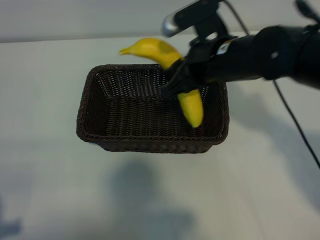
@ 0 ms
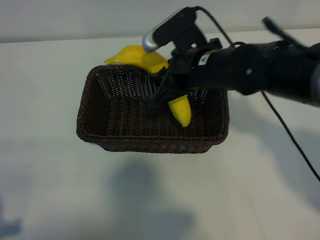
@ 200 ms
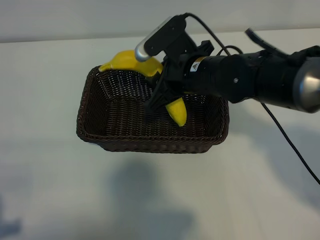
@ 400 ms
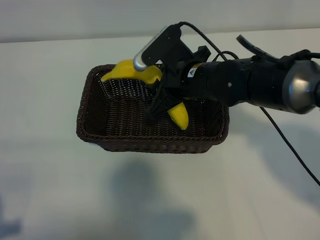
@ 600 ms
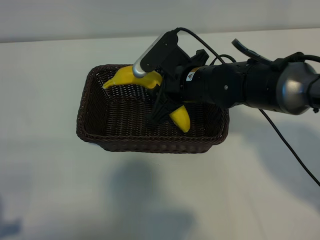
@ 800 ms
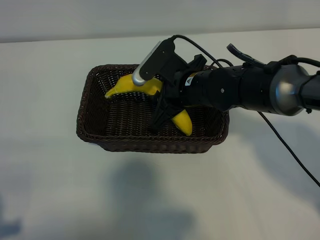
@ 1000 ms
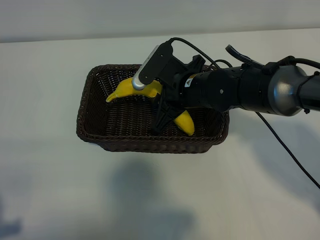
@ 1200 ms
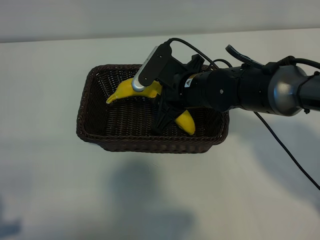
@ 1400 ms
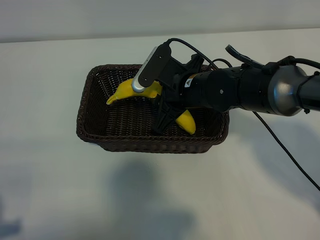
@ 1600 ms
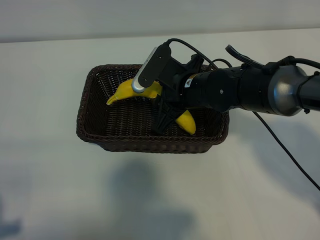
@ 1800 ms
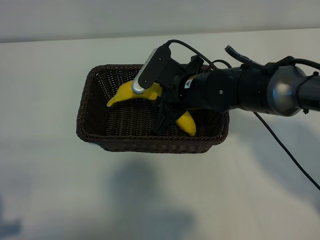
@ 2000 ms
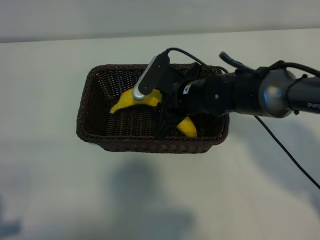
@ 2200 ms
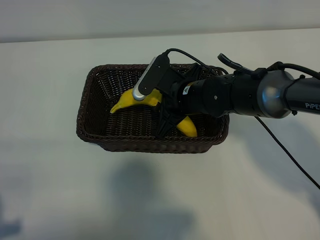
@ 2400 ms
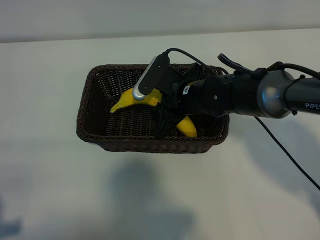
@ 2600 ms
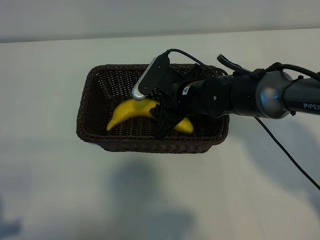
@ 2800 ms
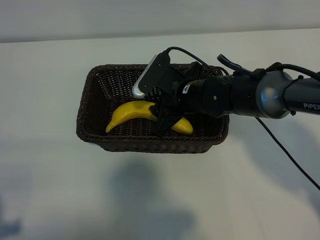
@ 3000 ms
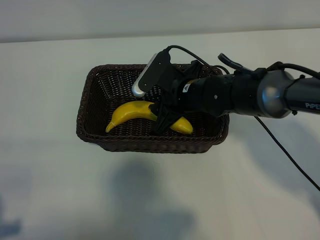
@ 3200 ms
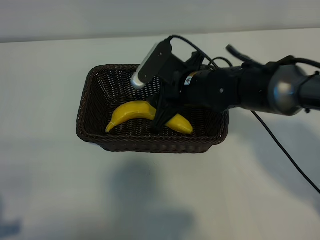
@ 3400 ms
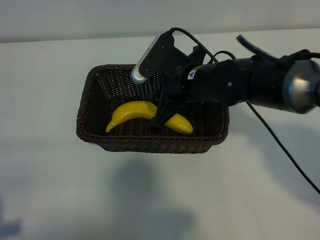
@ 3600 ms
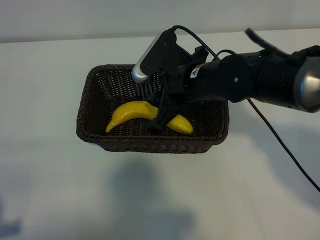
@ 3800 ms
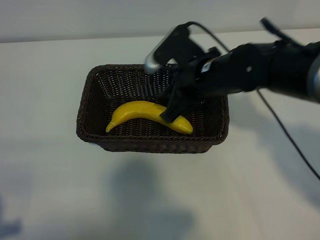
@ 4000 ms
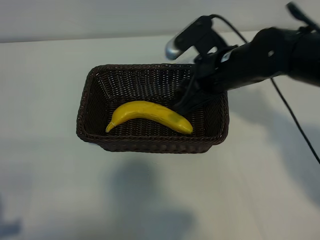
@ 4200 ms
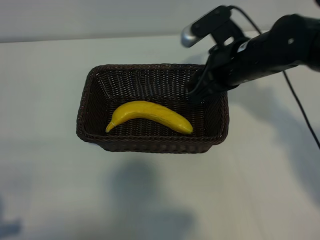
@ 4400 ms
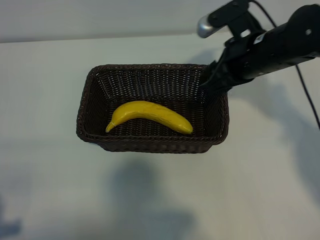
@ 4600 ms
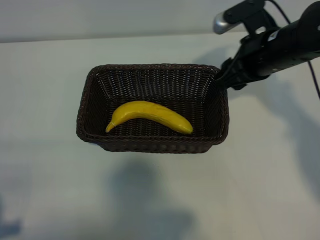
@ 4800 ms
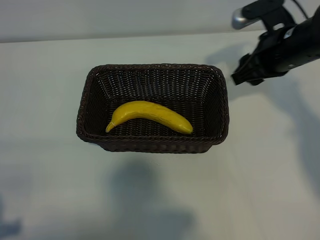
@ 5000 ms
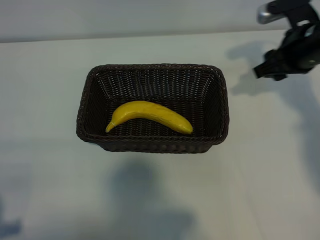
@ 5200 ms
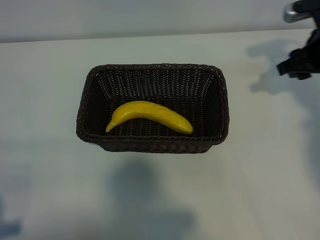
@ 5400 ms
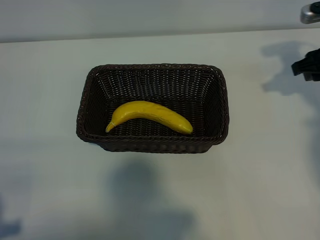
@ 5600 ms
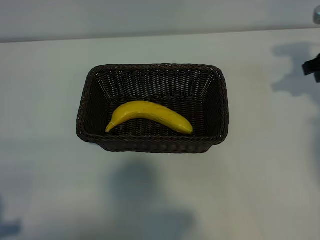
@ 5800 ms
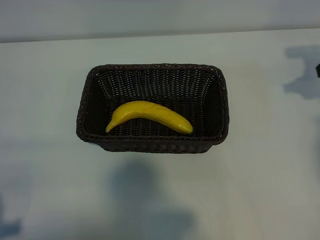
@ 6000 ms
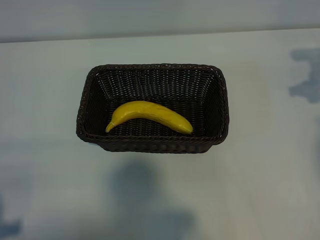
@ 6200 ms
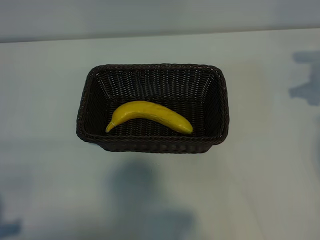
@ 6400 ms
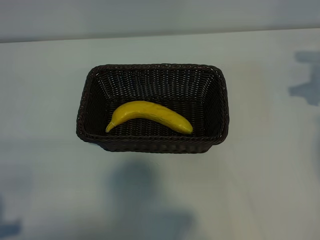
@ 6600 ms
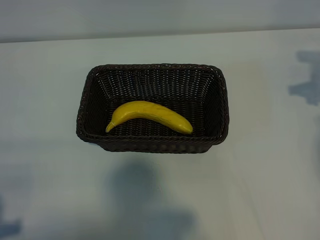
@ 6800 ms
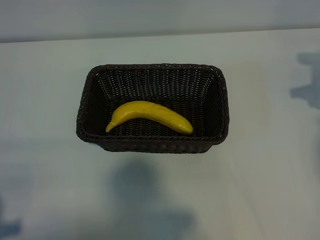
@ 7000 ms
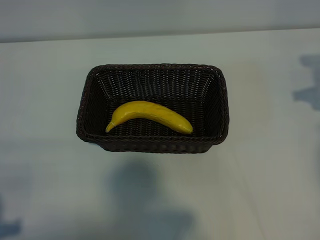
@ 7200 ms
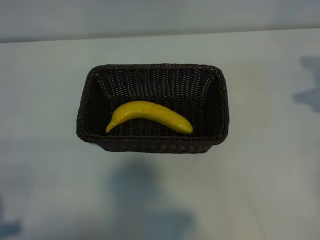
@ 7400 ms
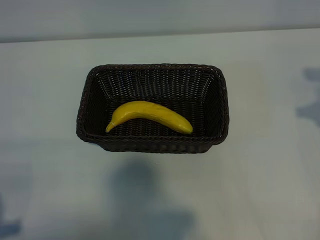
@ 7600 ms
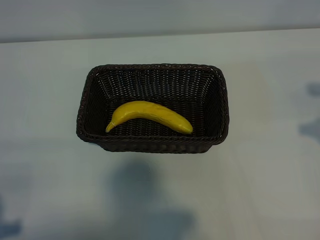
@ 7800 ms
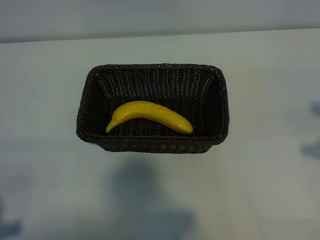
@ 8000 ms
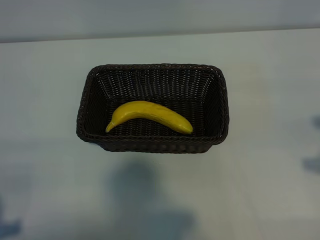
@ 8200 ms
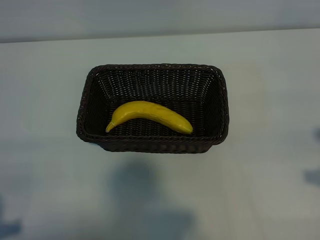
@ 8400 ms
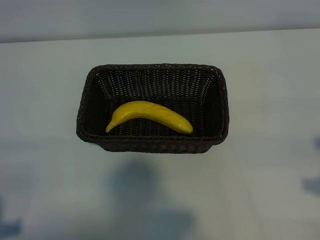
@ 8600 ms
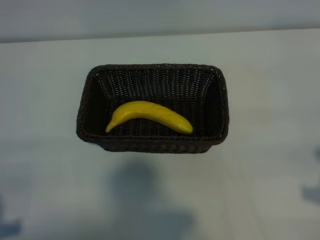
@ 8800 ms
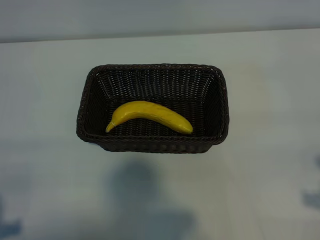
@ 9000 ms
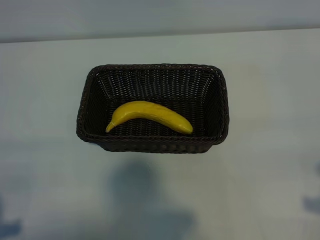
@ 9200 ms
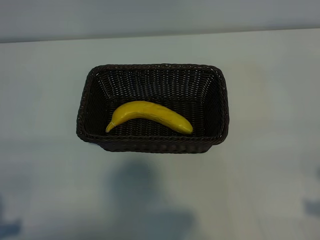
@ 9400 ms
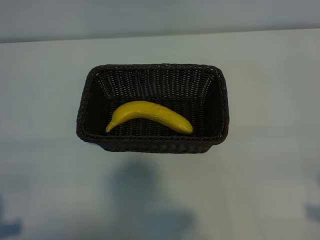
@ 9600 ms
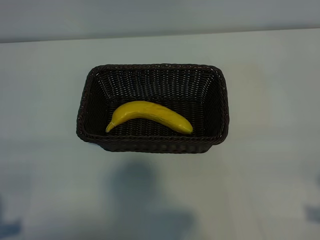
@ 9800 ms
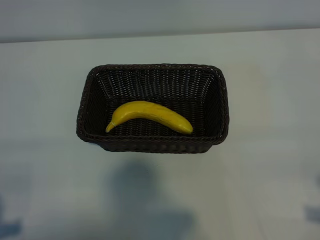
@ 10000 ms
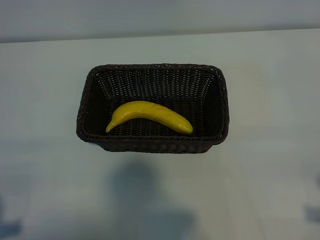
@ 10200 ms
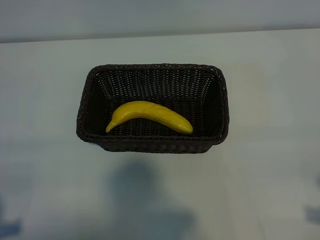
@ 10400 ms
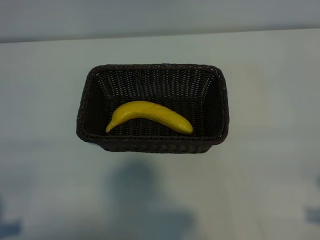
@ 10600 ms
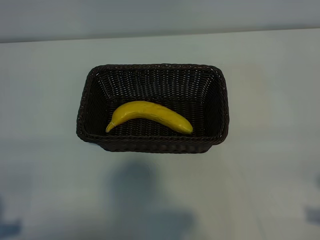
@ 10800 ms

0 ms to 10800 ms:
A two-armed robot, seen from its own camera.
Task of the whole recording: pick up the banana and put it into the basket.
Step, 0 ms to 4200 ms: Place the banana in the basket with right gripper.

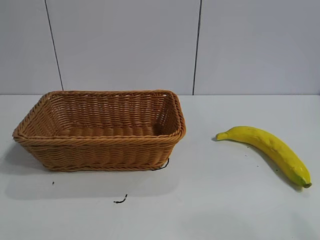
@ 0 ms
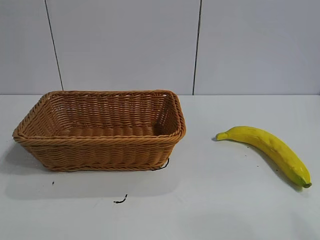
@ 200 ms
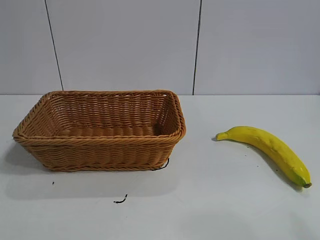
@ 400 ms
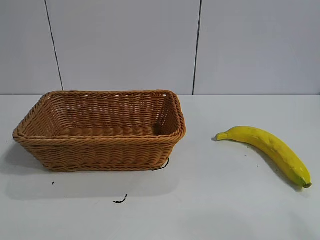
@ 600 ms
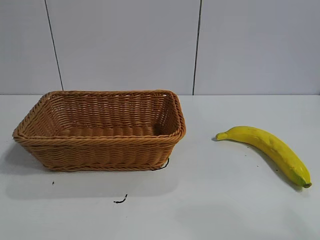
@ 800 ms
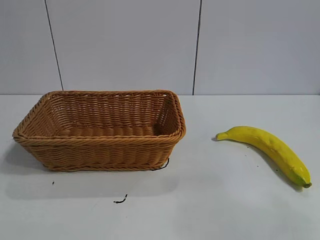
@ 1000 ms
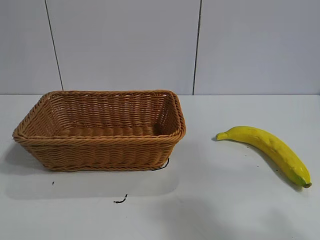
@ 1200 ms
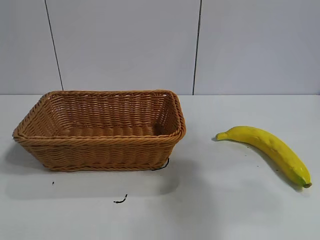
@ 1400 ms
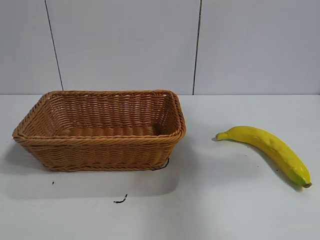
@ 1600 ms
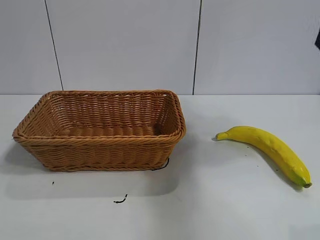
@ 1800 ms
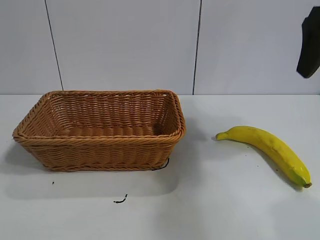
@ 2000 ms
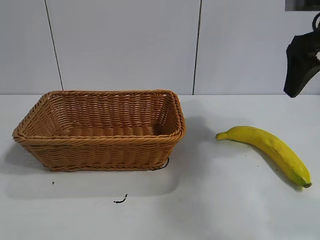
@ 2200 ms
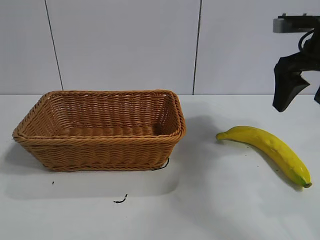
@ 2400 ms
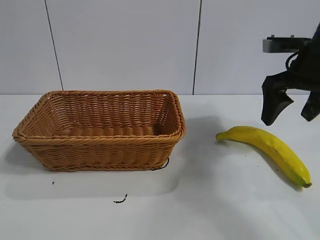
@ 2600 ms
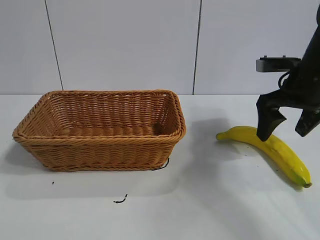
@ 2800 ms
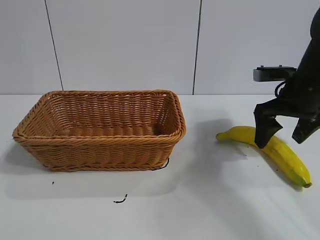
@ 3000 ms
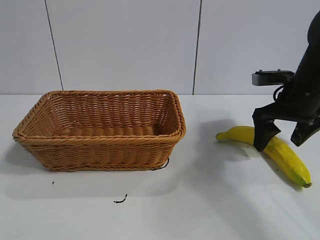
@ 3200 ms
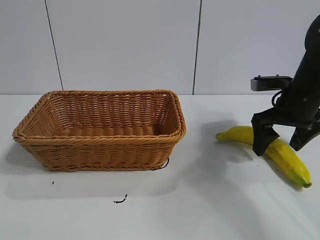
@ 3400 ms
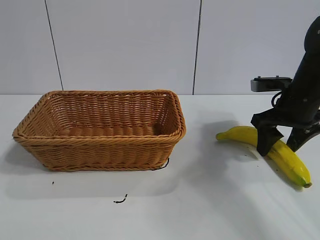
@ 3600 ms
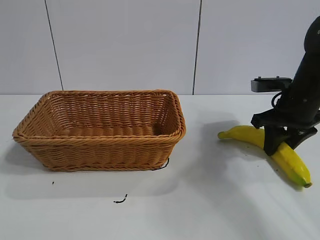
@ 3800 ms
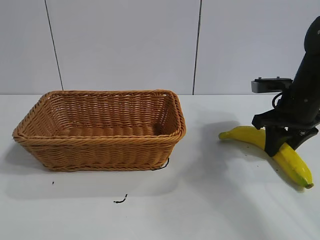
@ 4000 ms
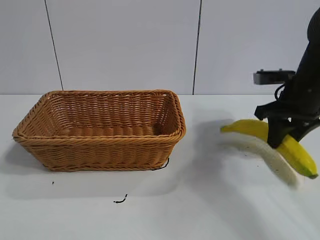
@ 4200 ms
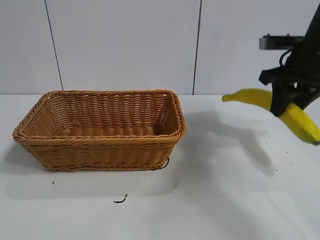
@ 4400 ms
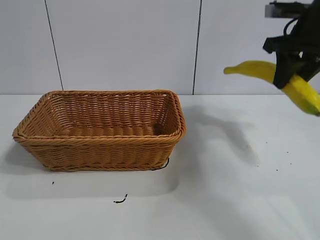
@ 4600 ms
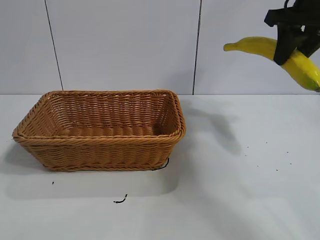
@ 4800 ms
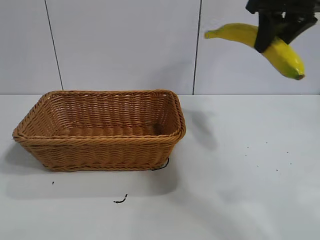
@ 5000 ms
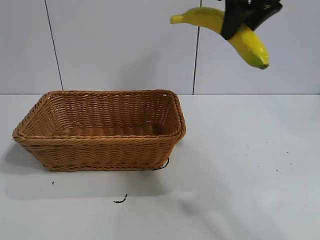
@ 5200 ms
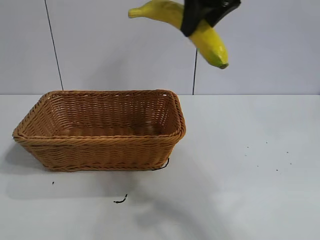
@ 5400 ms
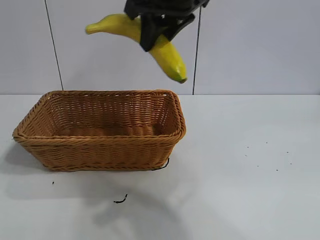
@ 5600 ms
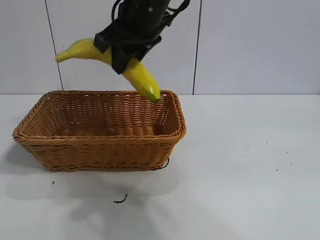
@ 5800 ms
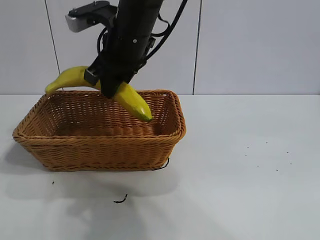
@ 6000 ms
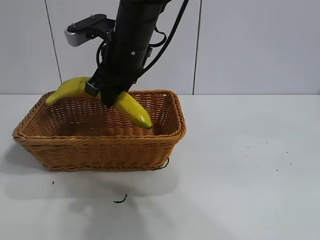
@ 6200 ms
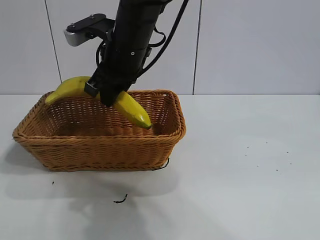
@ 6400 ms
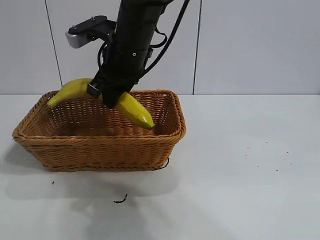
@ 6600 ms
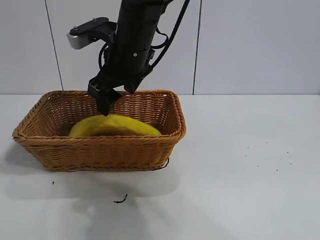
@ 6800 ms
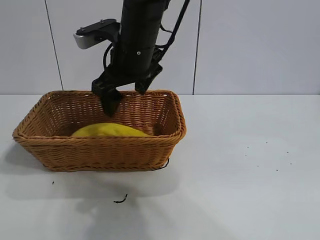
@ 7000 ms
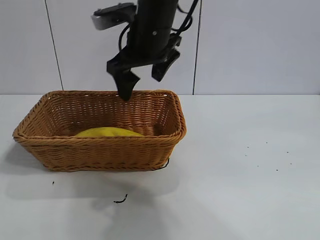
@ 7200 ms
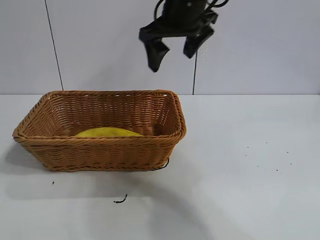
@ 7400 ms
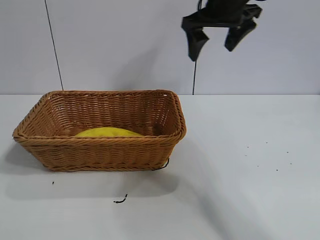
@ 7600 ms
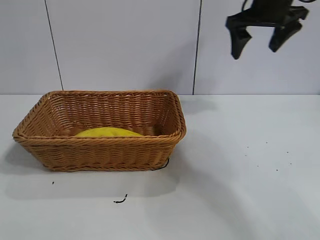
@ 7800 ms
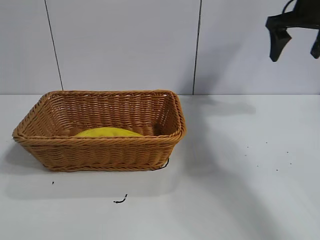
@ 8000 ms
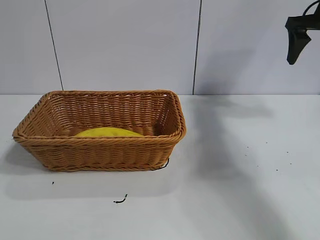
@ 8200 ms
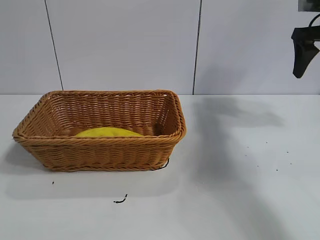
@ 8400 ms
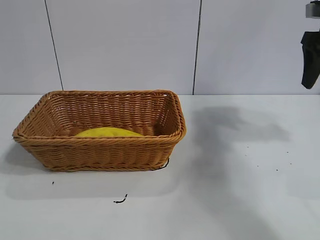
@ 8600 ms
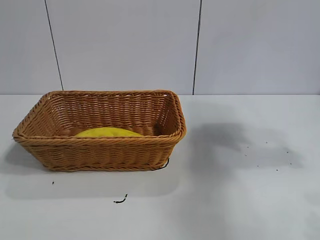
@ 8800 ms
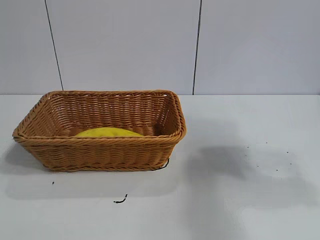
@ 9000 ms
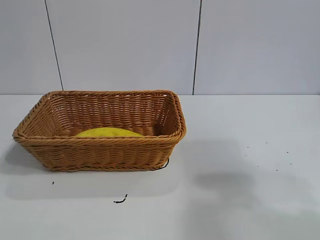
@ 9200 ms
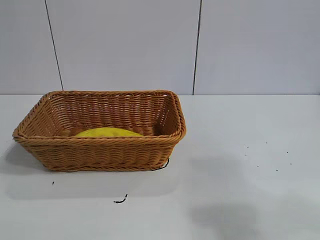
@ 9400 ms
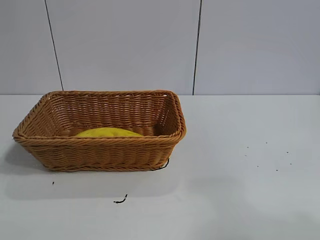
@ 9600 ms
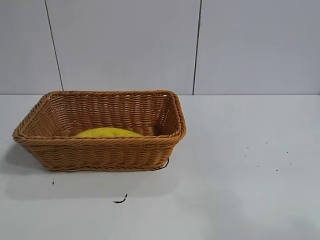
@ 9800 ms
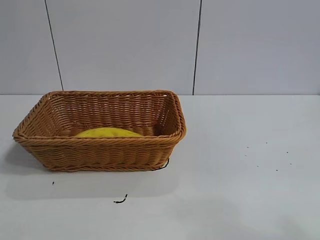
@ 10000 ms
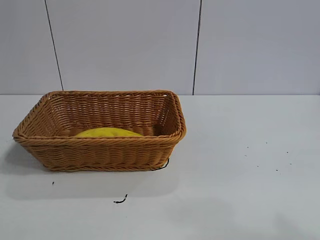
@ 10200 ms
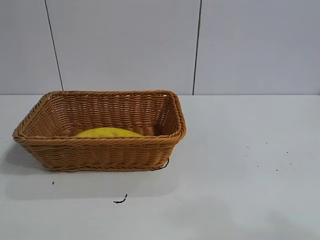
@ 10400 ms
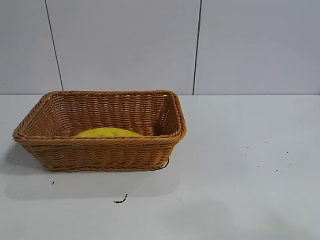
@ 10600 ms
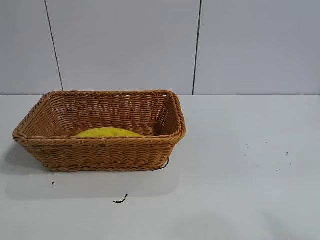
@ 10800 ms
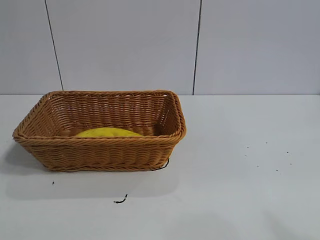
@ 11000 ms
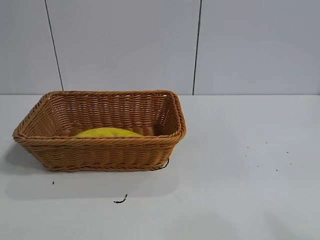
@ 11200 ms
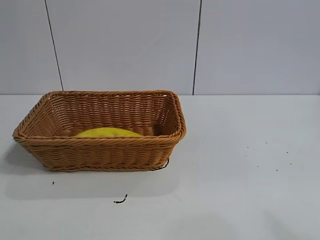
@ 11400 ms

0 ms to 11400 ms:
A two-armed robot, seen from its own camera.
Task of the whole recording: pick up the banana and put it into the basket.
Step, 1800 ms to 4000 ms: Grasp the banana with right gripper.
Step, 4400 ms to 6800 ms: Place the banana in the basket with right gripper.
